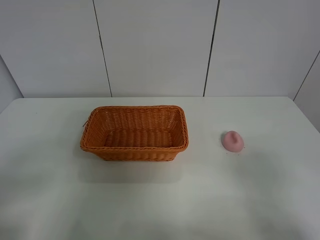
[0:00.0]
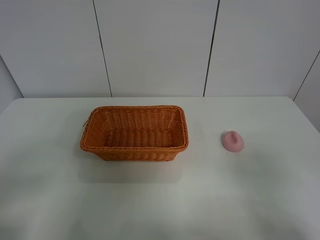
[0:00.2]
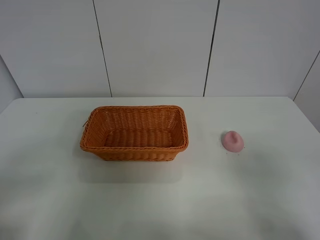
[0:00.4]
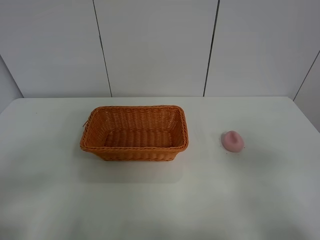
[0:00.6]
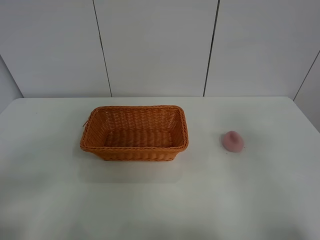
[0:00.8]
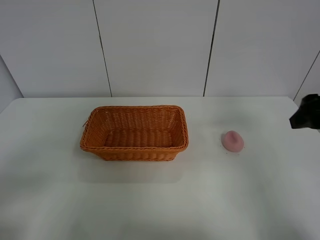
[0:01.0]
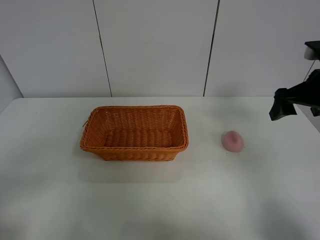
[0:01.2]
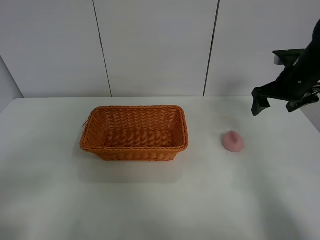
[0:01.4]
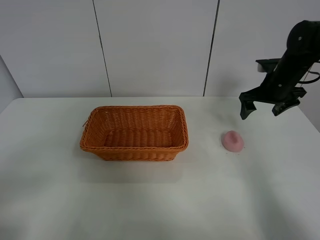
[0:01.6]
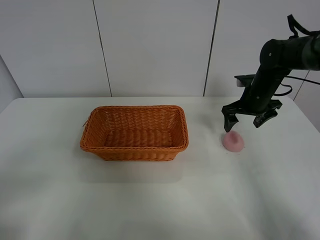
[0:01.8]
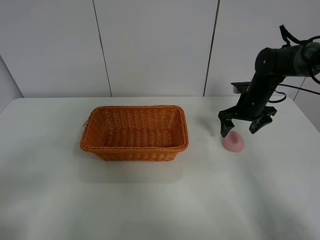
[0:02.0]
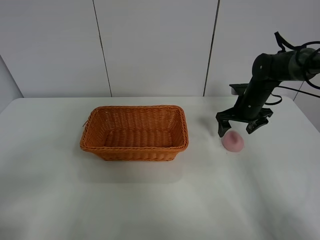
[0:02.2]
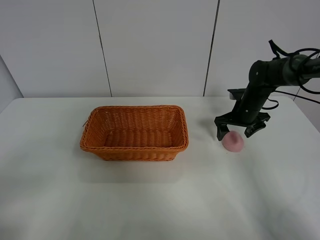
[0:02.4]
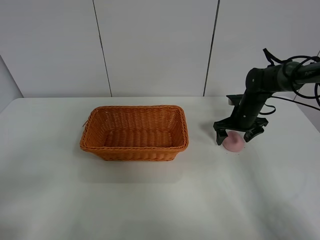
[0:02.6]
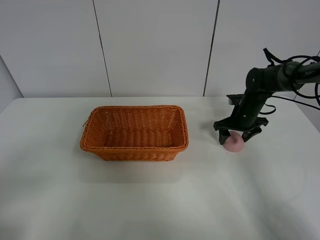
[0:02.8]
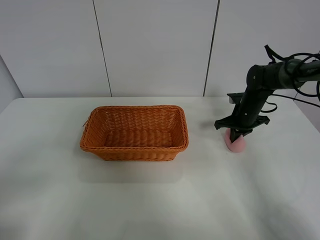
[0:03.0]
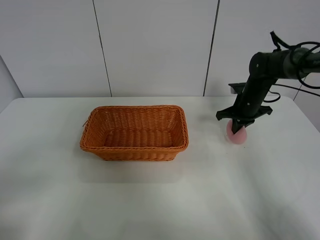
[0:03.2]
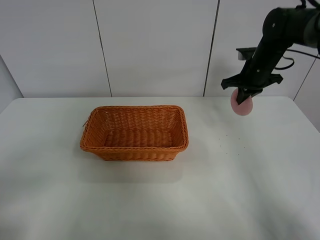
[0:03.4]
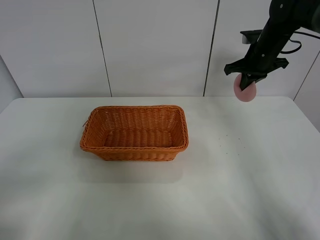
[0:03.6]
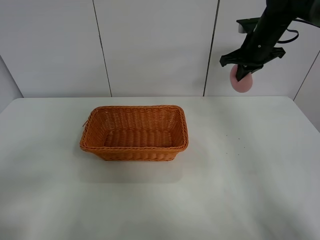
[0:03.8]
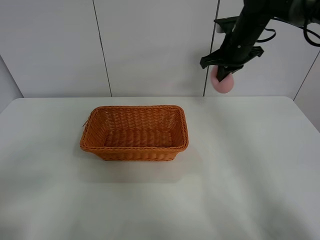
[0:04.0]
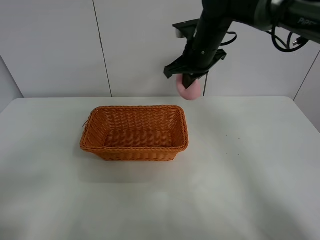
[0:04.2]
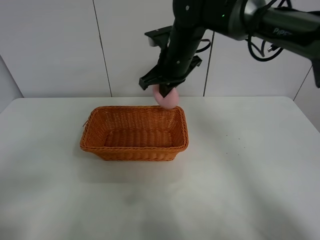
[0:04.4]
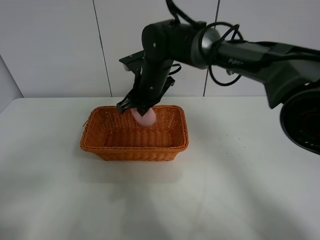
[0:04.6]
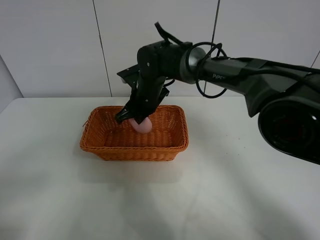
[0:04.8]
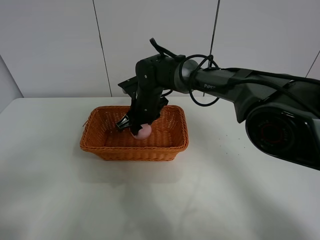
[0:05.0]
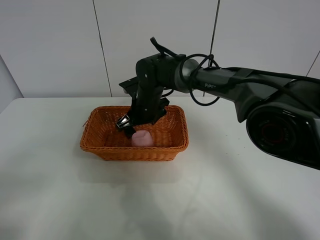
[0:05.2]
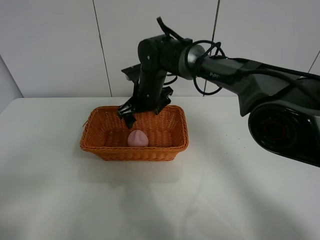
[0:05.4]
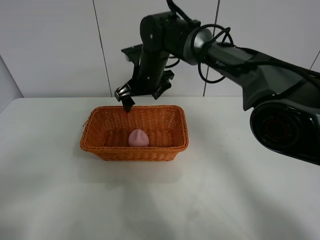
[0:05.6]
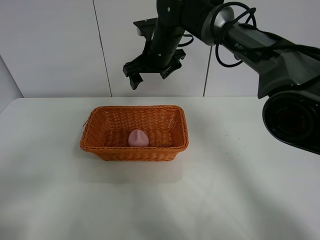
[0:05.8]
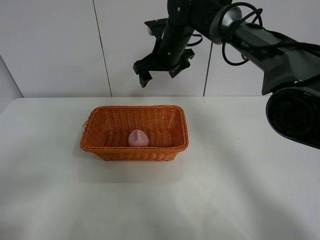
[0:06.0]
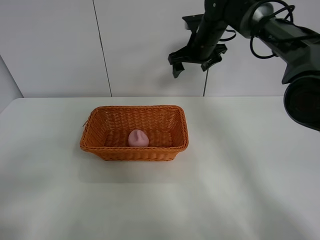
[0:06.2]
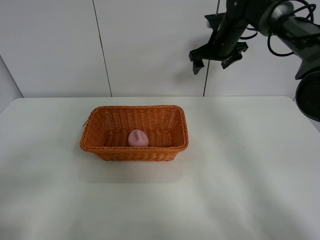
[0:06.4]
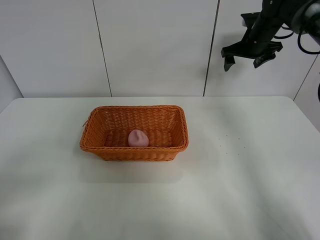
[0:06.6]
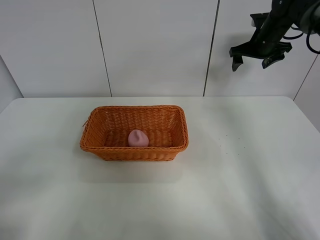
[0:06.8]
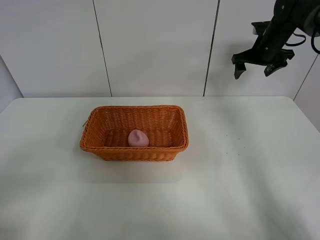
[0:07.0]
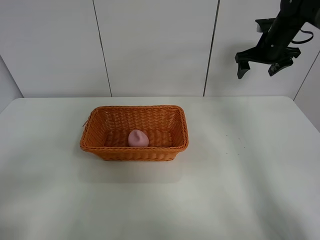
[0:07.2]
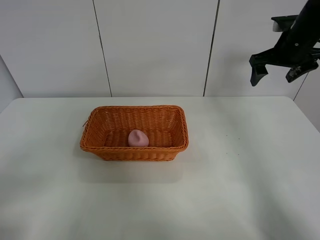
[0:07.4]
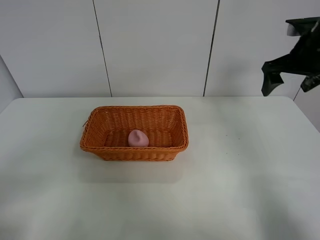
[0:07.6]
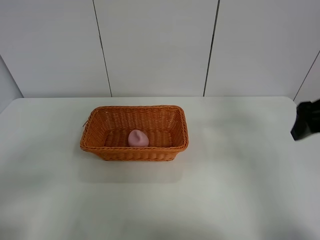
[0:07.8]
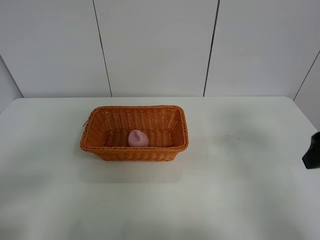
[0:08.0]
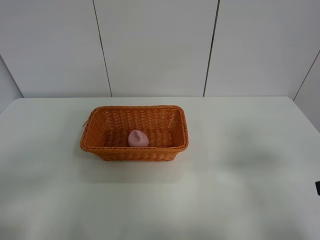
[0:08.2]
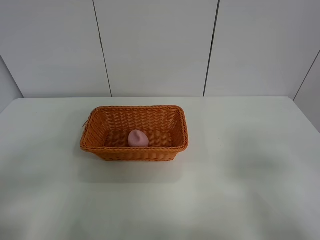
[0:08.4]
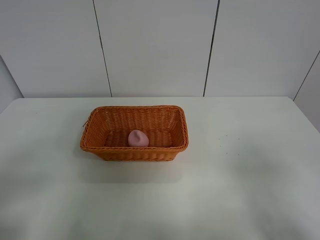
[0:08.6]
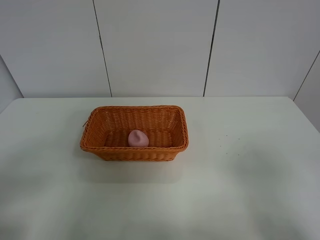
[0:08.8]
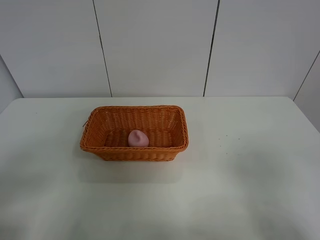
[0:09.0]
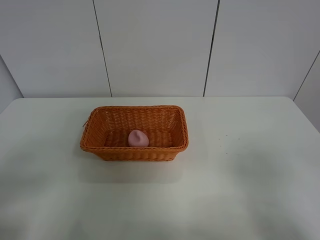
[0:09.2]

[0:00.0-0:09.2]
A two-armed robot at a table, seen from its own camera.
Step, 0:00.0 to 0:03.0: Grasp the peach with right gripper.
Step, 0:03.2 to 0:05.6: Place the peach in the basket with right gripper.
0:00.0 to 0:01.6: The right gripper travels forward by approximately 40 cm.
0:01.6 to 0:03.0: The right gripper moves downward, about 10 cm, and closes.
0:03.0 to 0:04.6: The right gripper heads to the left and upward, covering about 30 cm.
0:04.6 to 0:06.2: The right gripper travels to the right and forward by roughly 15 cm, and opens up.
0:06.2 to 0:07.6: The right gripper goes approximately 25 cm to the right and backward.
0:07.6 to 0:09.2: The right gripper is displaced backward by roughly 30 cm.

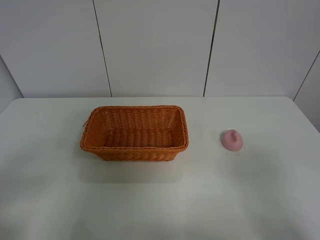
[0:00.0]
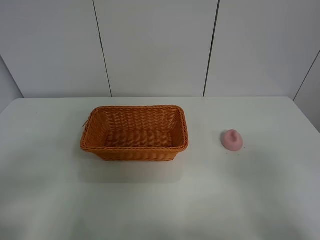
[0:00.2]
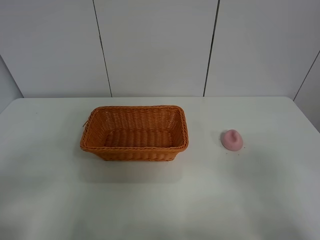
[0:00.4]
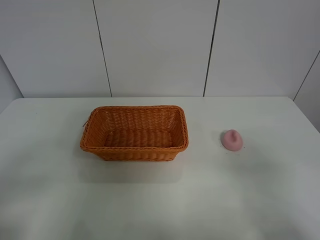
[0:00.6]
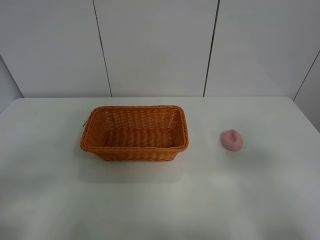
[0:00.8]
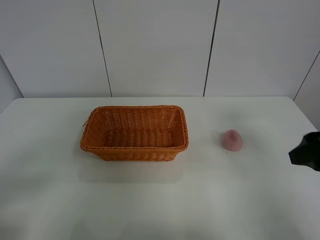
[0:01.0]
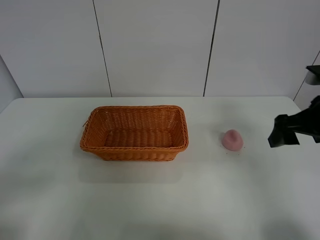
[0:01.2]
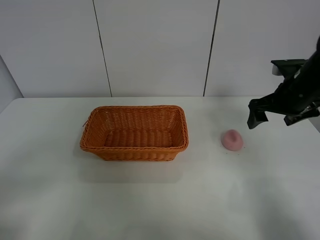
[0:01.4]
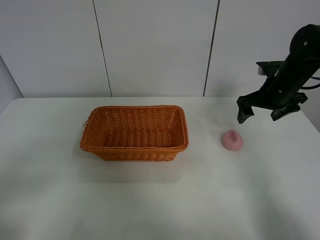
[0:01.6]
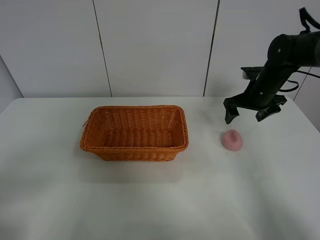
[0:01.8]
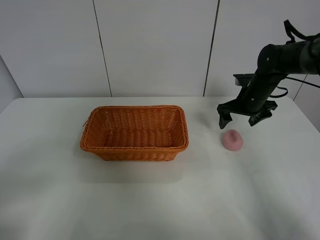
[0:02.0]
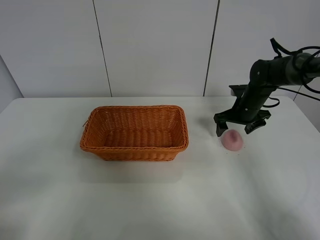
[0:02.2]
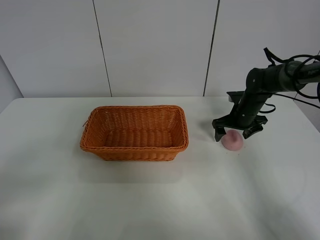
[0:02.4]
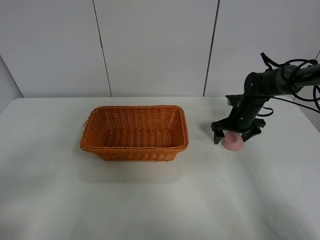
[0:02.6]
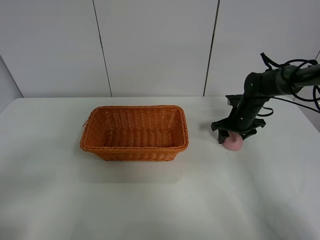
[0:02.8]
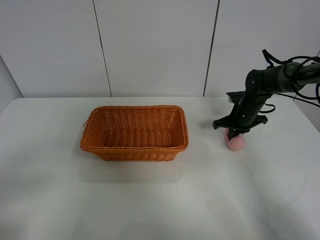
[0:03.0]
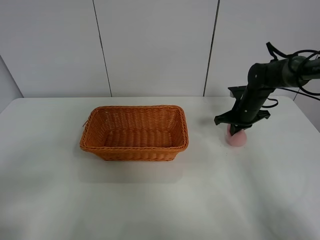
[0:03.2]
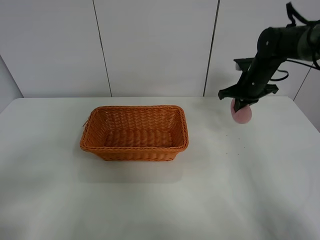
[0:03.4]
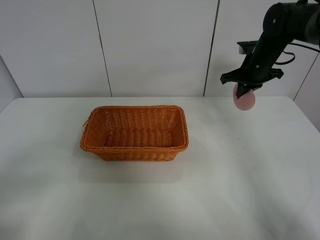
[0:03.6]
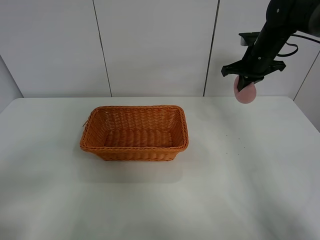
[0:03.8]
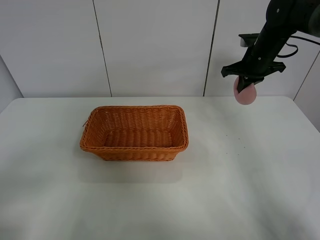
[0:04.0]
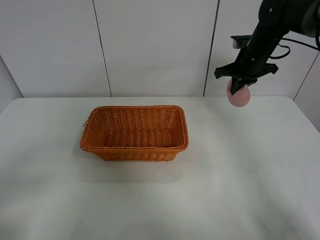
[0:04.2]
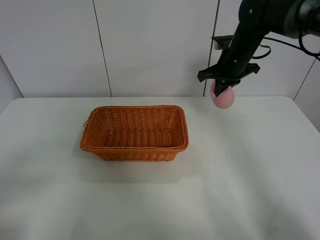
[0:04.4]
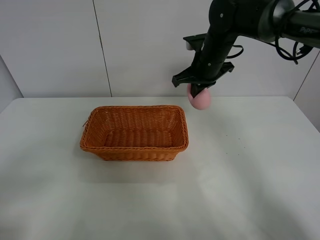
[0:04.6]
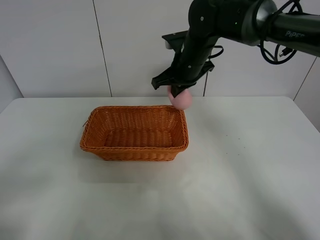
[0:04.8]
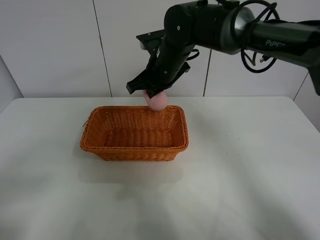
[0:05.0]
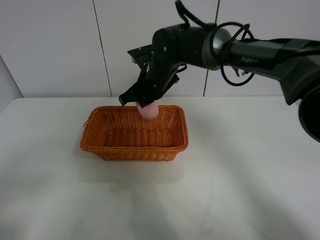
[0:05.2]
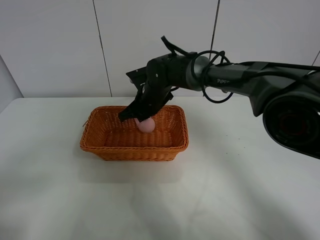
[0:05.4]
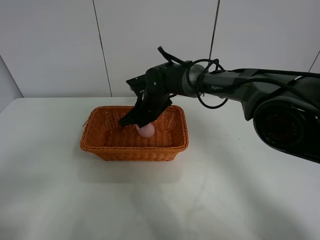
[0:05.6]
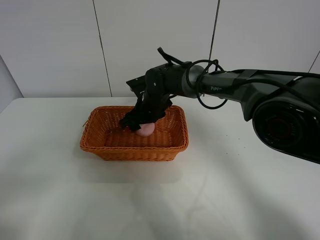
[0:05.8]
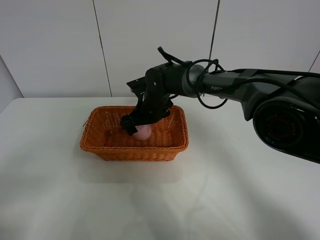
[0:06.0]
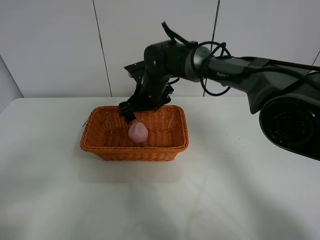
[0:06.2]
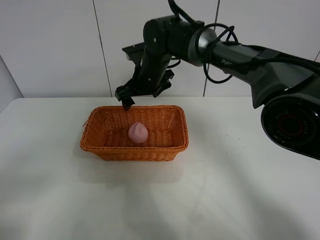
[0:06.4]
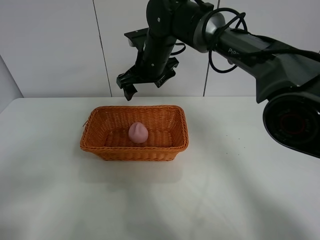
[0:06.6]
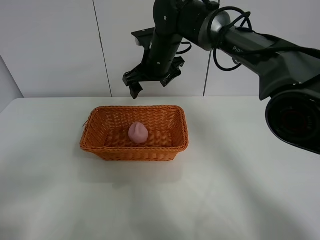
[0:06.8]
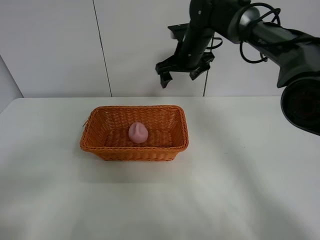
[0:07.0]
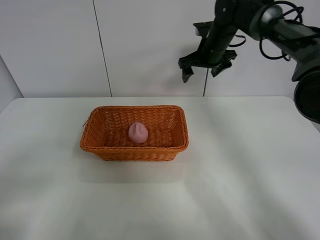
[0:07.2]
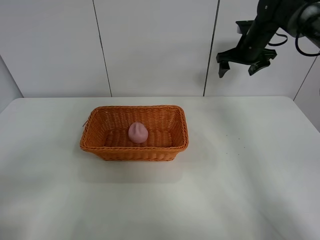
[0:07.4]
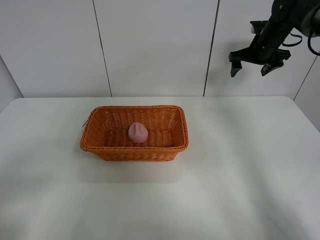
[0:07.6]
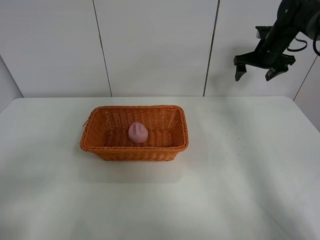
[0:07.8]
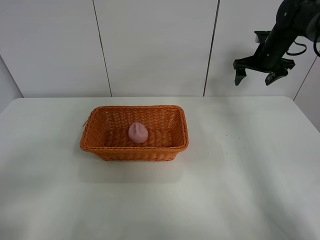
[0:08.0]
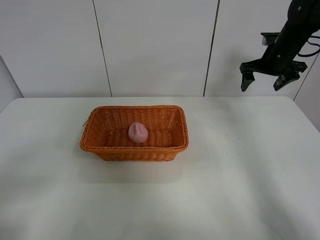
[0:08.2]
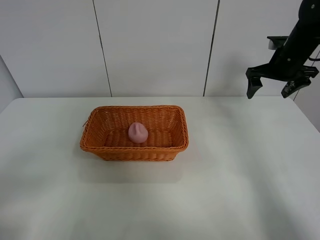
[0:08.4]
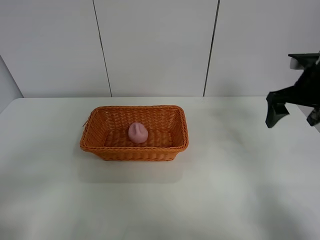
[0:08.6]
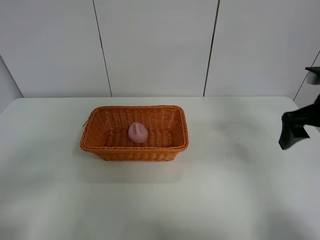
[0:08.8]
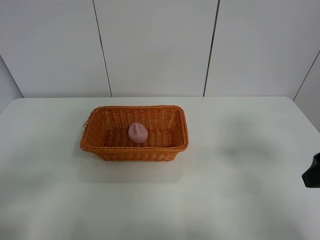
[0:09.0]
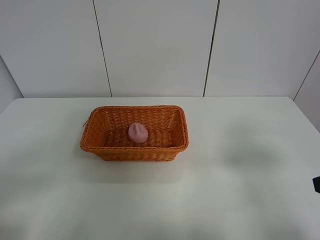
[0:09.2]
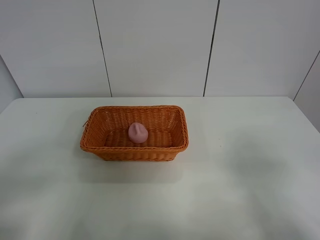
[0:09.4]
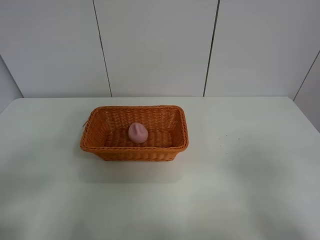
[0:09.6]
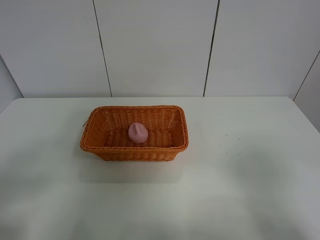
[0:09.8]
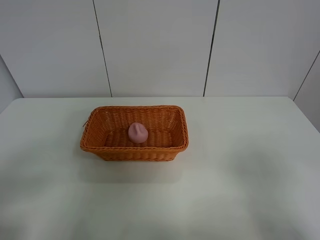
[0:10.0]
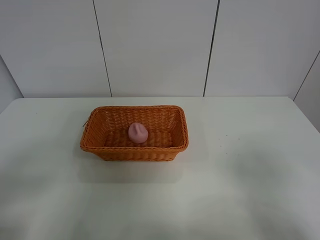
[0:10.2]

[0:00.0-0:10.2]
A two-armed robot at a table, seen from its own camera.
Step, 0:00.0 to 0:03.2: Grasp the peach with right gripper.
Step, 0:03.4 to 0:06.4: Place the peach in the basket with right gripper.
0:00.0 to 0:01.4: The right gripper travels forward by approximately 35 cm.
0:01.4 to 0:03.0: The right gripper is displaced downward and forward by some 15 cm, and closes up.
0:03.0 to 0:04.4: The right gripper is displaced upward and to the left by approximately 15 cm.
0:04.4 to 0:05.8: The right gripper shifts some 20 cm to the left and downward, and opens up.
0:05.8 to 0:07.2: The right gripper travels to the right, upward and forward by some 25 cm.
0:07.2 to 0:08.8: The right gripper moves backward and to the right, roughly 30 cm.
0:08.8 to 0:10.2: The right gripper moves backward, about 20 cm.
